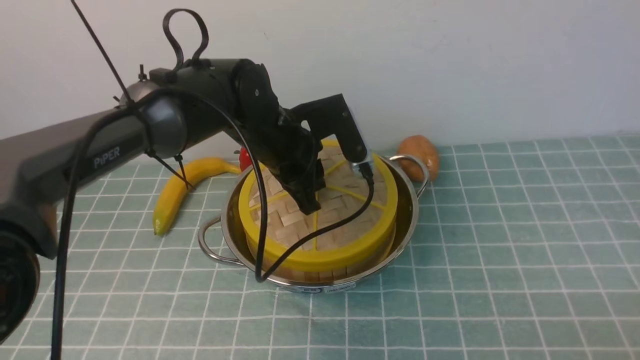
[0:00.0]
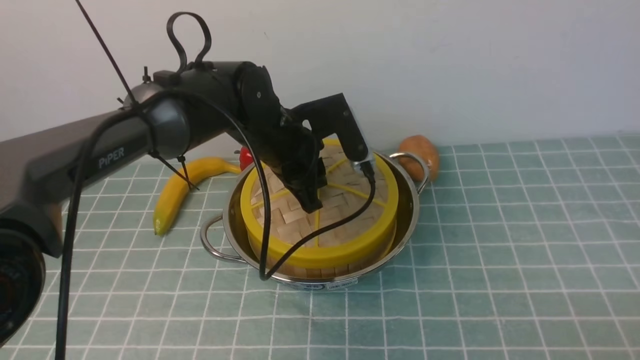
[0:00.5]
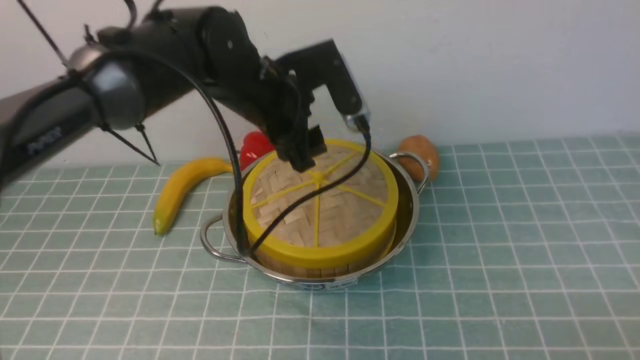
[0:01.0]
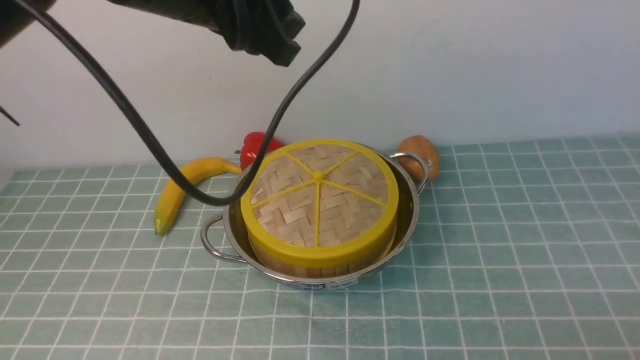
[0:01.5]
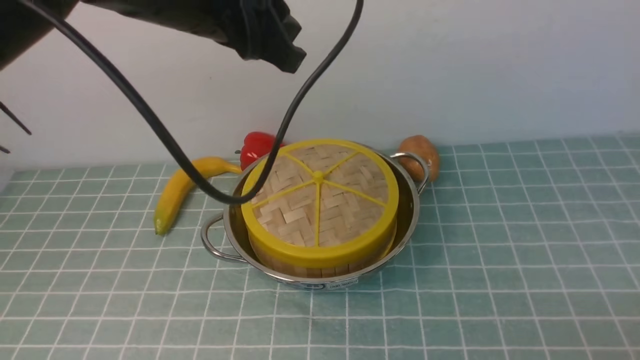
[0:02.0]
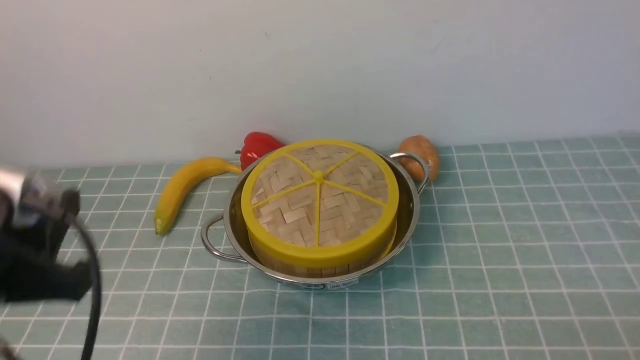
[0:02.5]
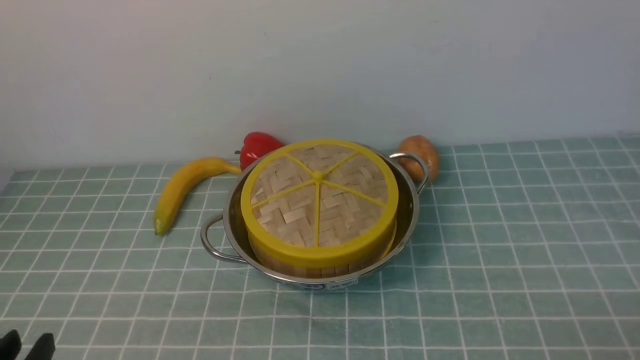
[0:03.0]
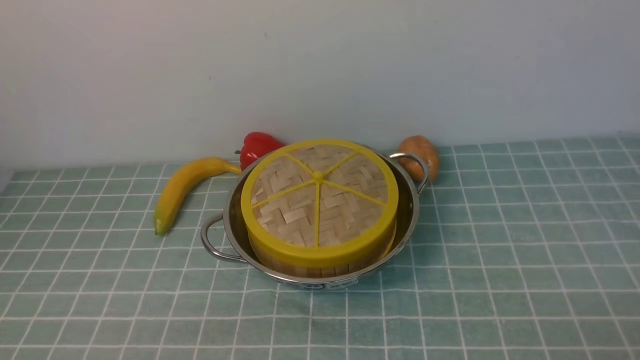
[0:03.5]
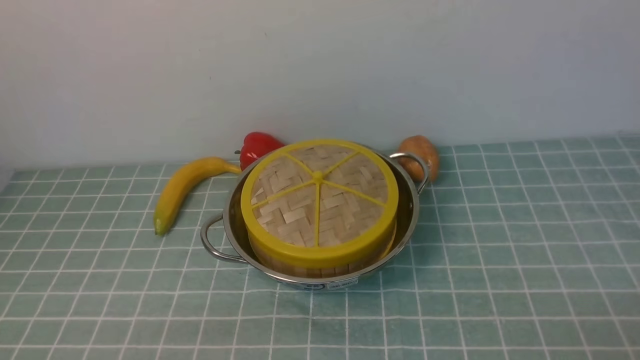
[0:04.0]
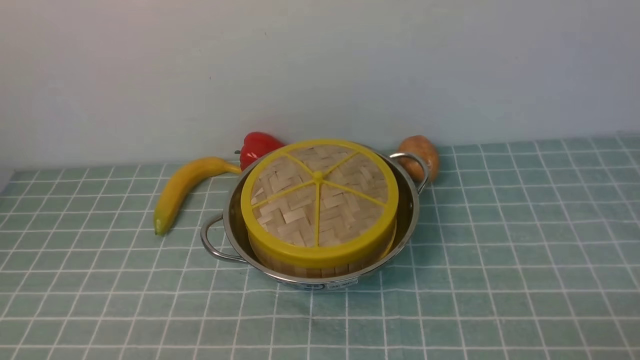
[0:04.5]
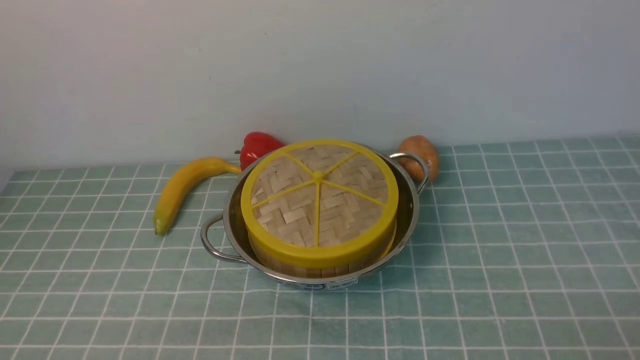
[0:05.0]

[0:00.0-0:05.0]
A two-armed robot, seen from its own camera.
Task of the whole recording: place the steamer in the pot on the blue tablecloth, and put the lid on the steamer.
0:00.0 to 0:02.5: The left gripper shifts about 30 cm backward and to the left, and opens its fingers.
0:02.5 to 0:05.0: The left gripper is displaced downward and backward by roughly 15 cm.

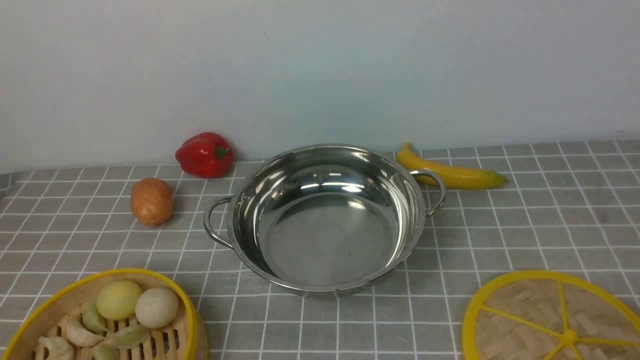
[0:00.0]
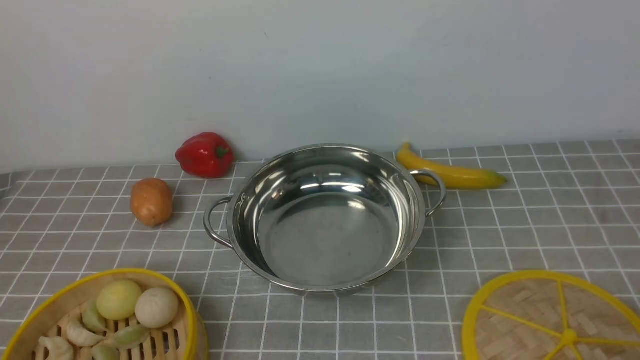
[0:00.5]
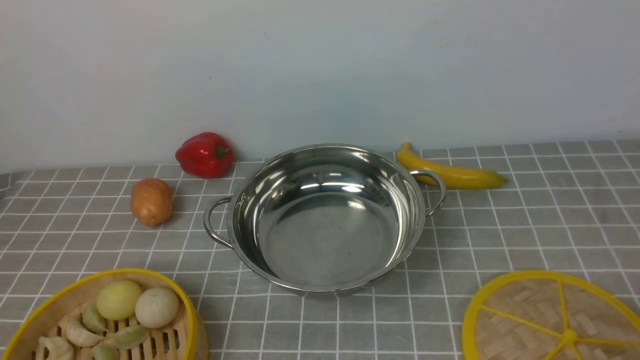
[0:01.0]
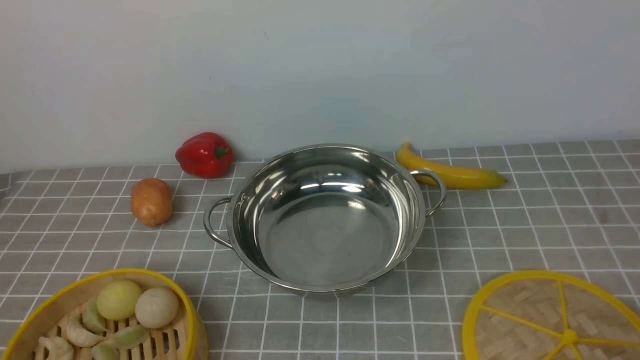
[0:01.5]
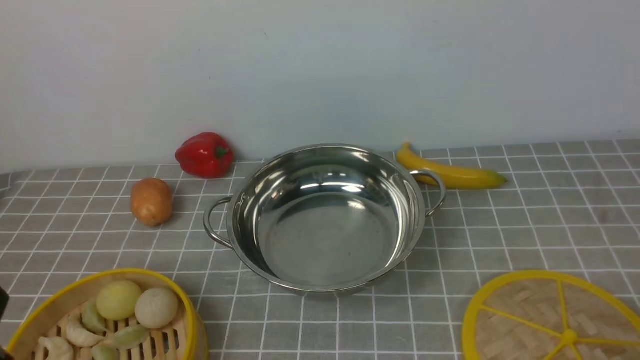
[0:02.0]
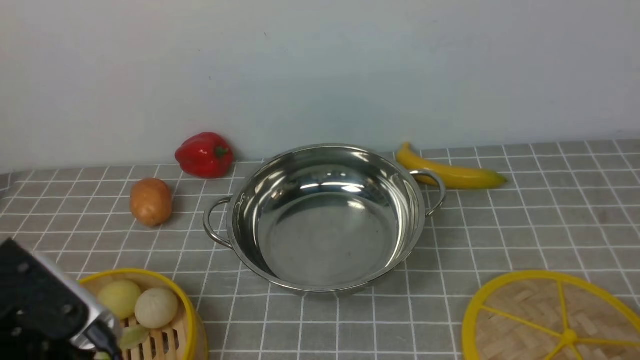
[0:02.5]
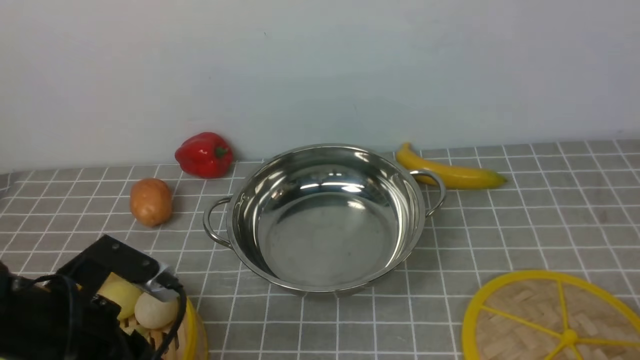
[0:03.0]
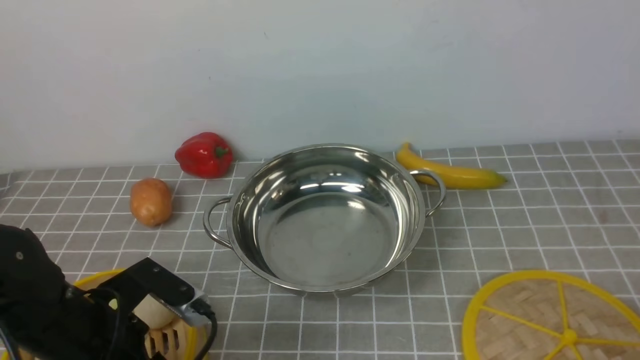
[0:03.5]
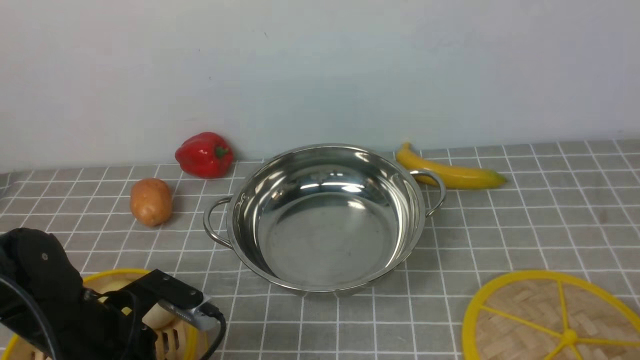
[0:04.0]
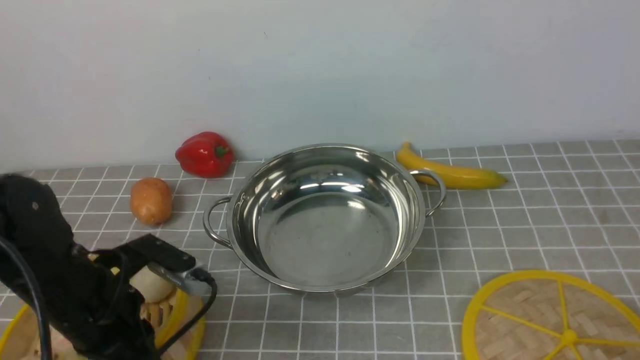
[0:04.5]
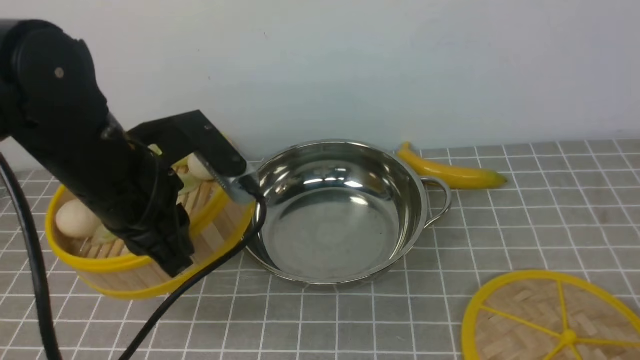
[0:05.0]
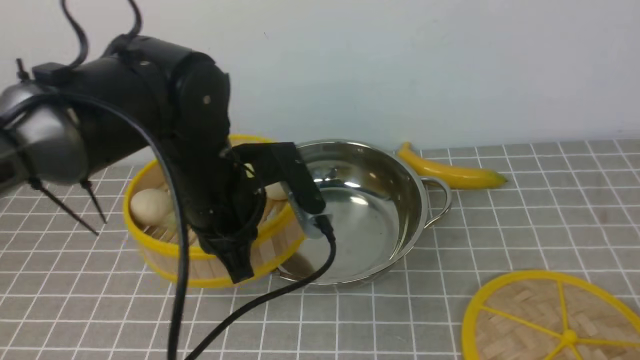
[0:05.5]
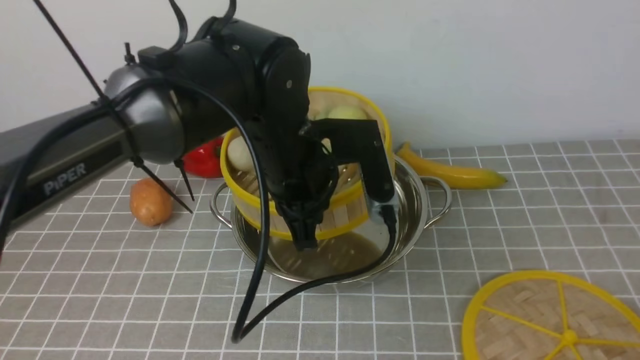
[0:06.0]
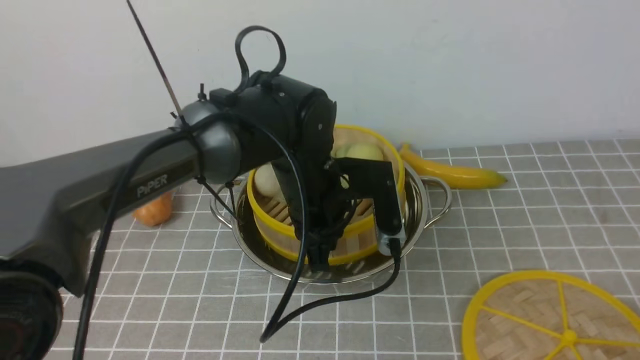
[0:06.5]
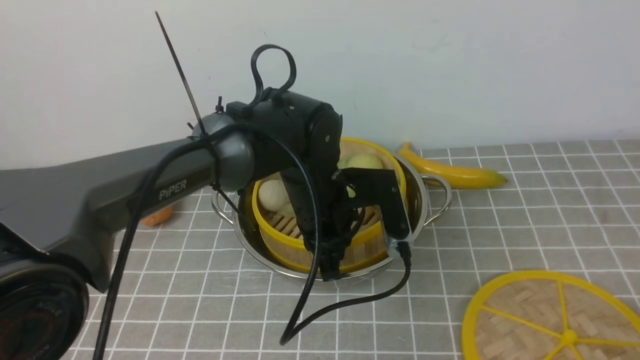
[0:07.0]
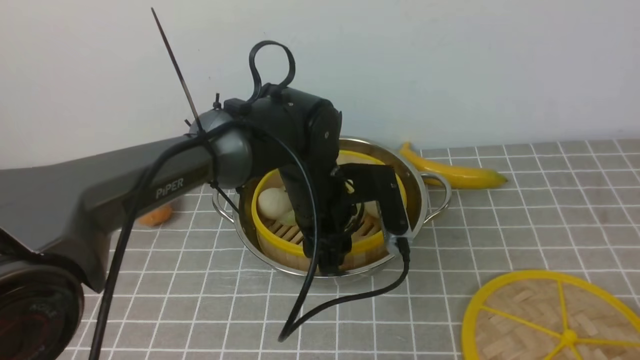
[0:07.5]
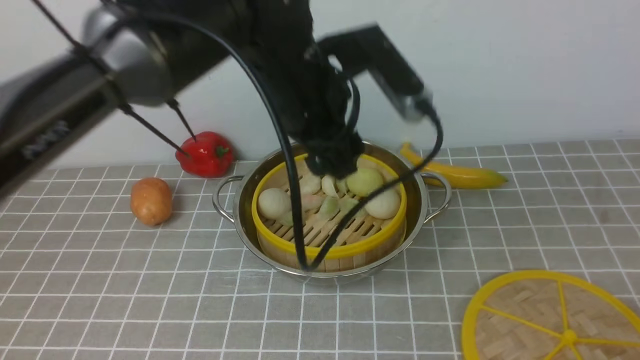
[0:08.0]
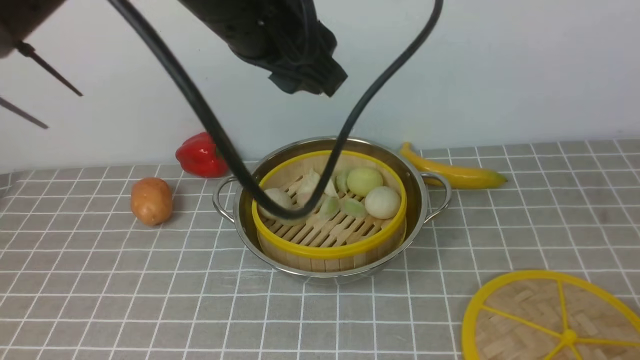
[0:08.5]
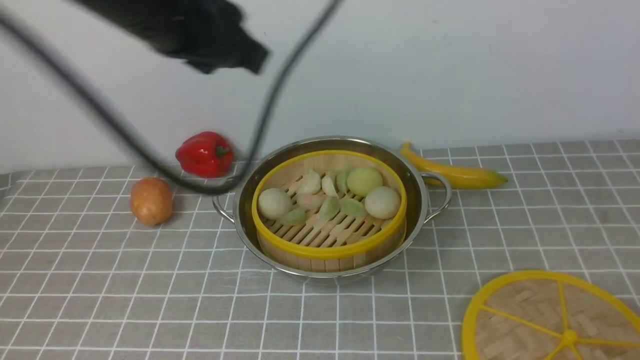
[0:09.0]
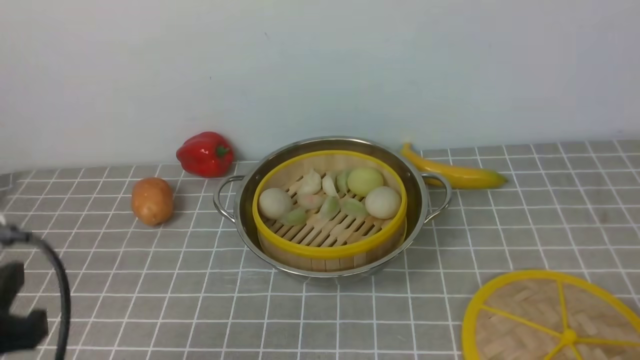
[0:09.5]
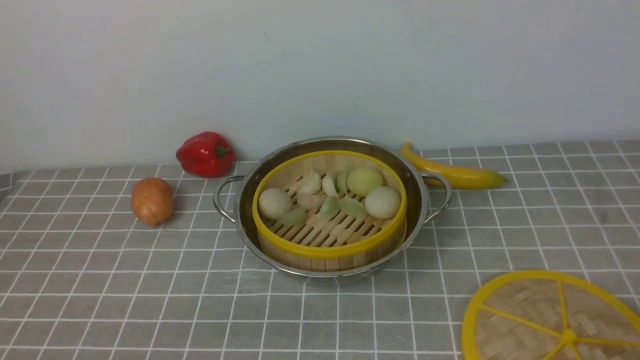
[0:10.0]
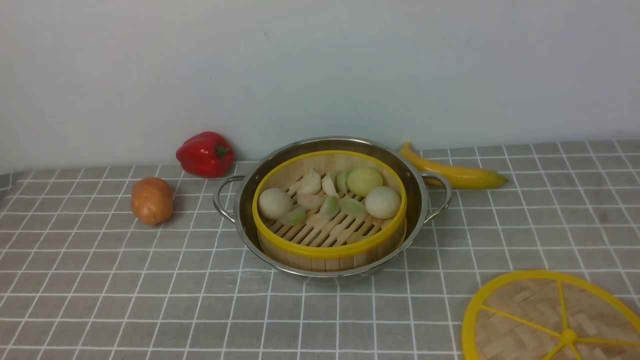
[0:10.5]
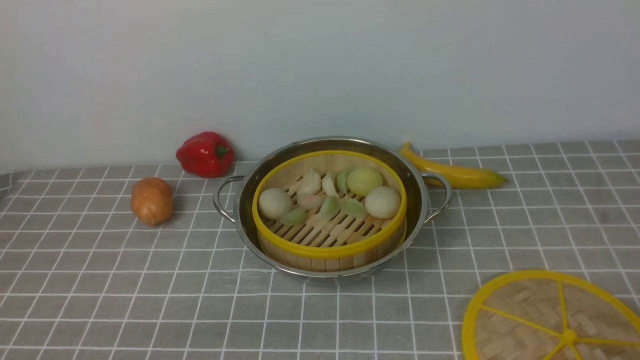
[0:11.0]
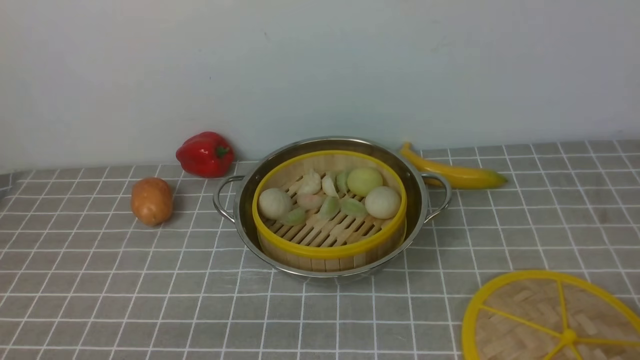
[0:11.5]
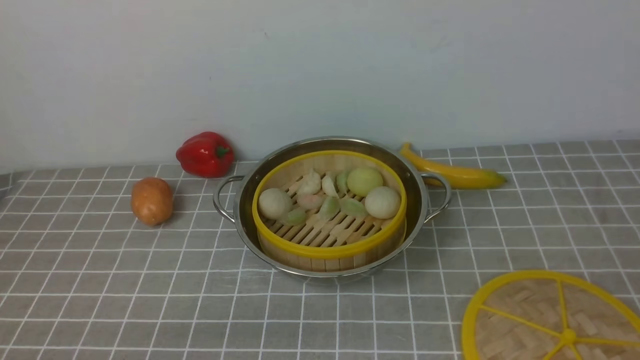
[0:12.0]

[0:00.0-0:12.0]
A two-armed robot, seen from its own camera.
Task of the whole recording: place the steamer in the pot on the grey tablecloth, and put the lid on the steamer.
Step, 0:00.0 to 0:04.5: use the left arm to lift the steamer closest to it.
Step, 0:05.0 to 0:07.5: use the left arm to put the steamer into the iron steamer pot in the middle.
0:02.0 to 0:04.0: The left gripper moves forward and downward, some 20 cm.
0:04.0 to 0:06.0: The left gripper is displaced to the right, forward and upward by about 25 cm, and closes up.
0:06.0 to 0:08.0: The left gripper heads upward, covering approximately 5 cm, and opens its fingers.
0:08.0 to 0:10.0: The left gripper is displaced backward, to the left and downward by approximately 40 cm, and closes.

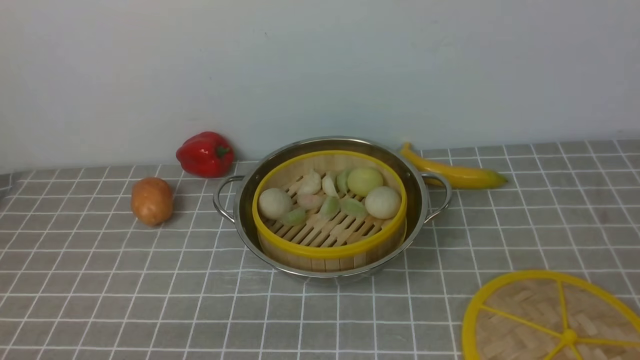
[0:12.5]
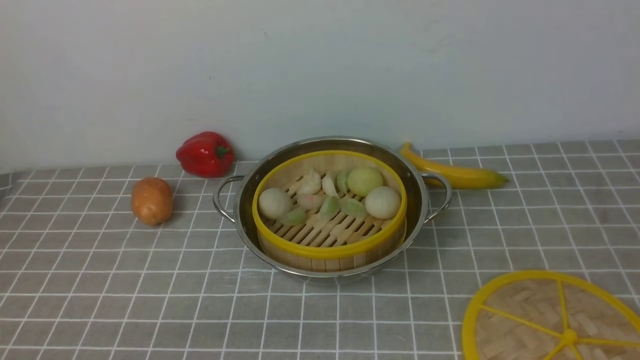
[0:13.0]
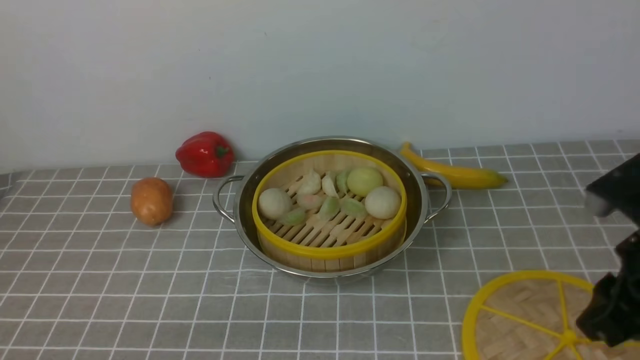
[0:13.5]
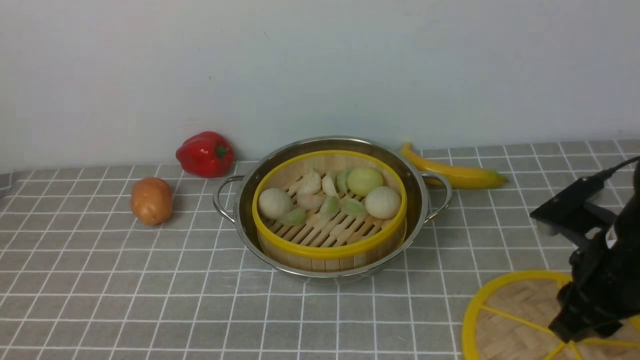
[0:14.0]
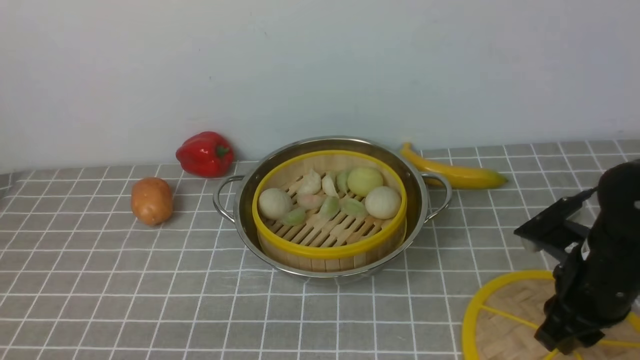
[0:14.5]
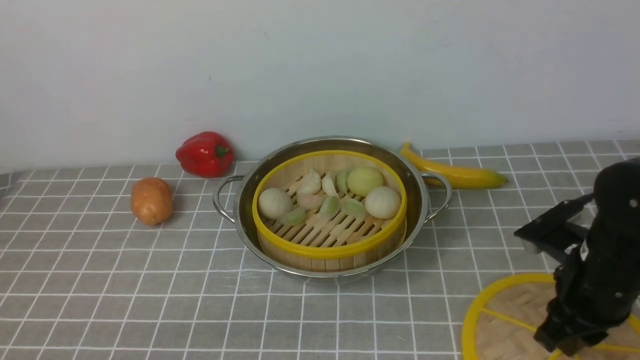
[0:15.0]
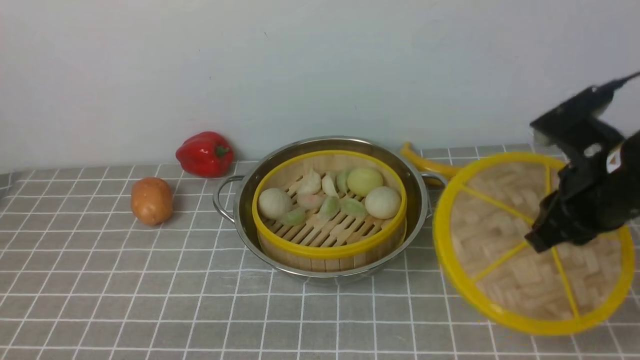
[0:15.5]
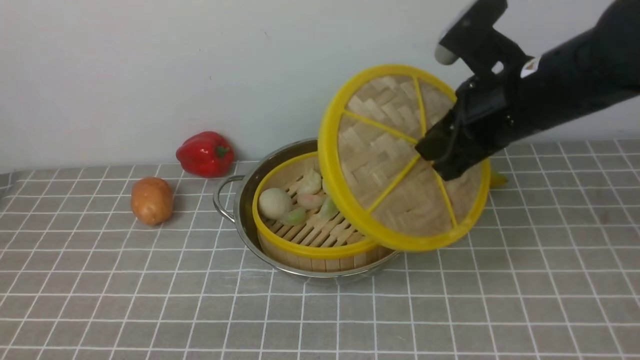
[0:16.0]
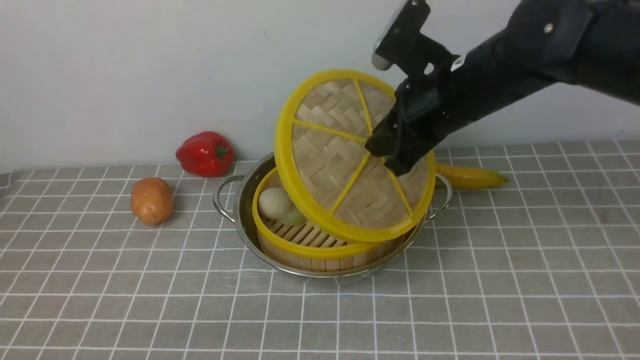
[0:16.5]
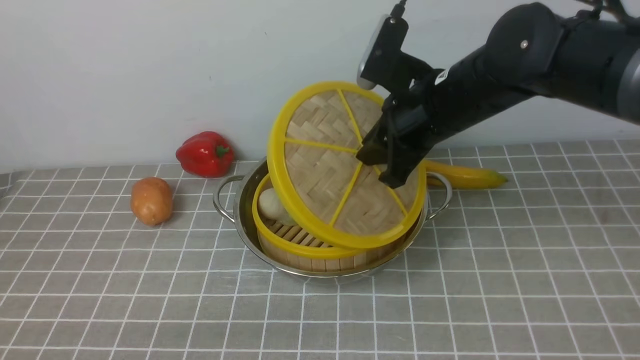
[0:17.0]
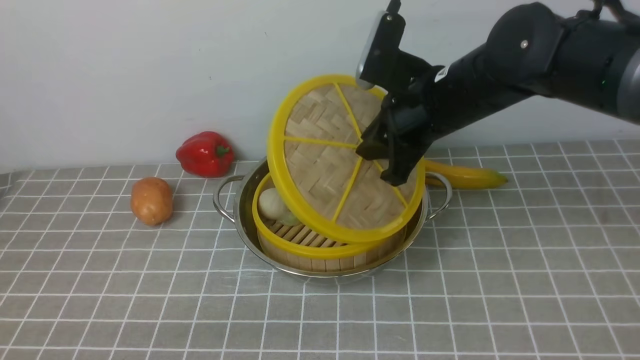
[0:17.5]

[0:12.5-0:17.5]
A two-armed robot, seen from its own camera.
Task of the whole recording: place the steamer in the pot on the grey tablecloth, and put the lid on the steamer.
Step, 0:12.5 to 0:15.0: use the right arm to lift the lid of the steamer.
0:12.5 to 0:15.0: The right gripper shifts roughly 25 cm forward and downward, and closes its fingers.
0:15.0 to 0:17.5: The right gripper goes some 20 cm to the left, forward and upward.
